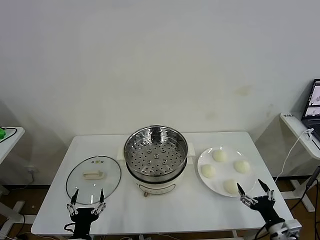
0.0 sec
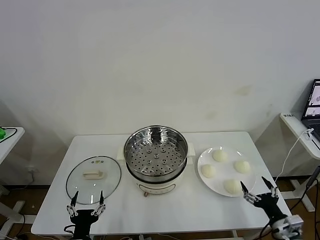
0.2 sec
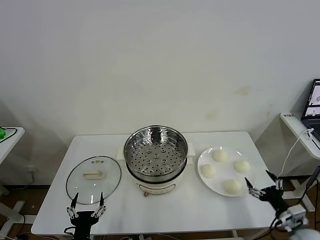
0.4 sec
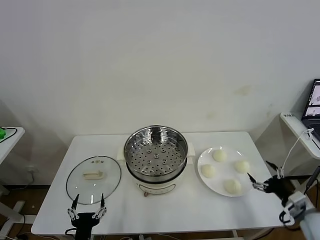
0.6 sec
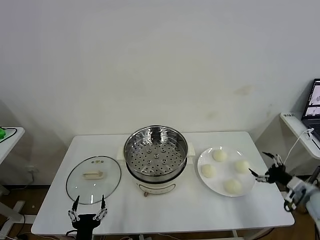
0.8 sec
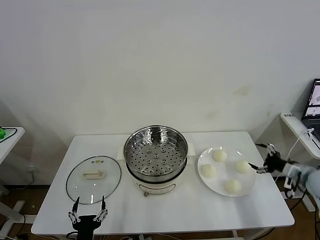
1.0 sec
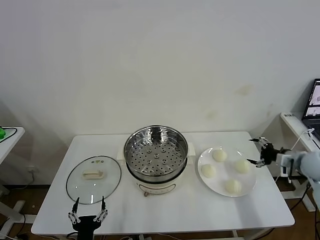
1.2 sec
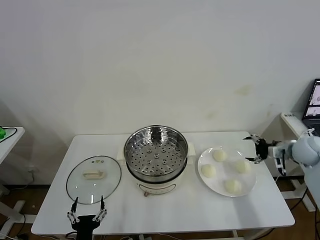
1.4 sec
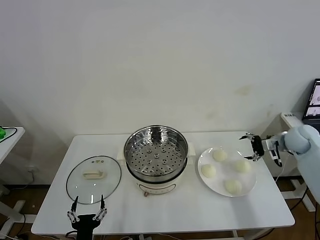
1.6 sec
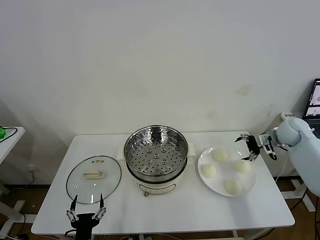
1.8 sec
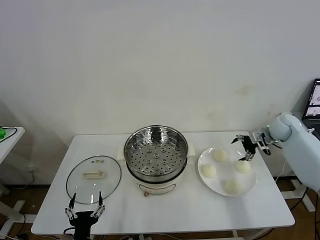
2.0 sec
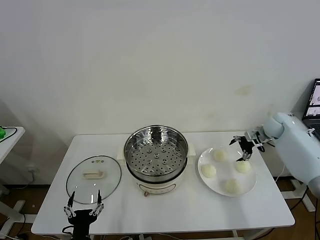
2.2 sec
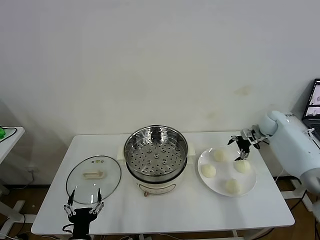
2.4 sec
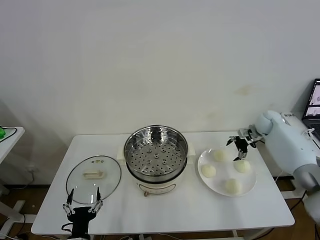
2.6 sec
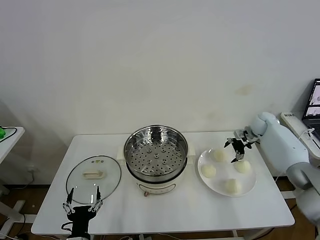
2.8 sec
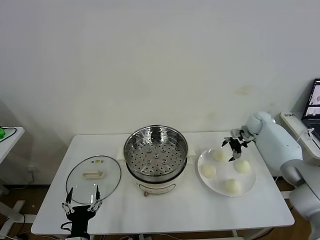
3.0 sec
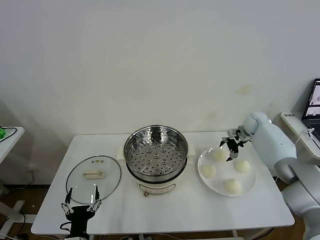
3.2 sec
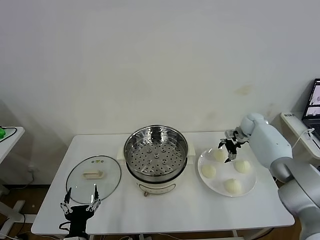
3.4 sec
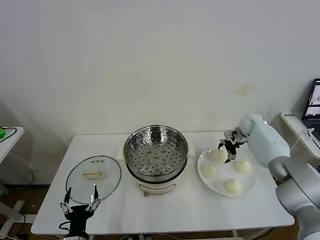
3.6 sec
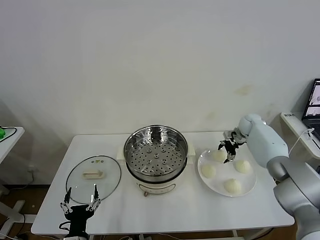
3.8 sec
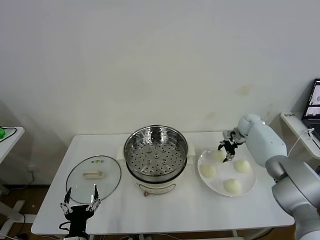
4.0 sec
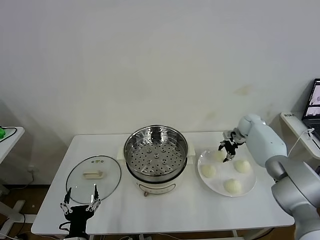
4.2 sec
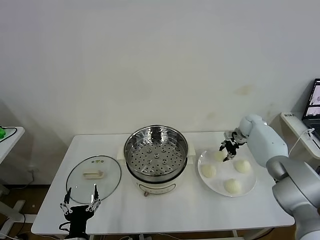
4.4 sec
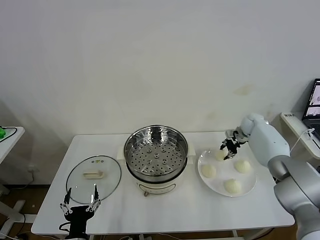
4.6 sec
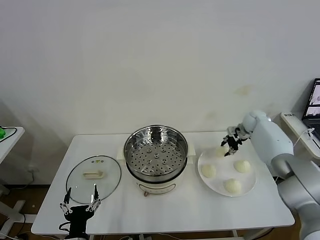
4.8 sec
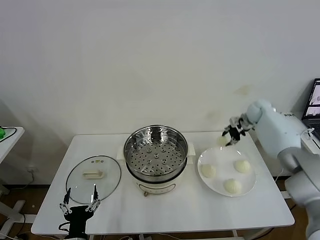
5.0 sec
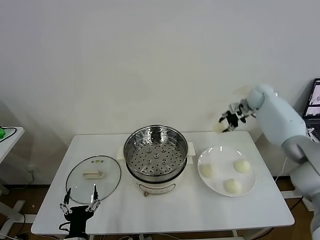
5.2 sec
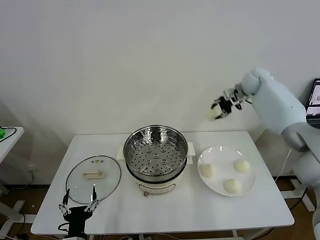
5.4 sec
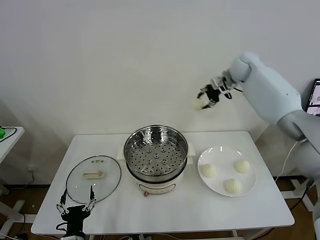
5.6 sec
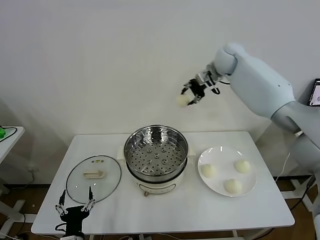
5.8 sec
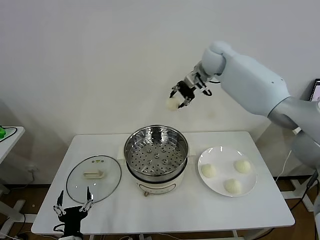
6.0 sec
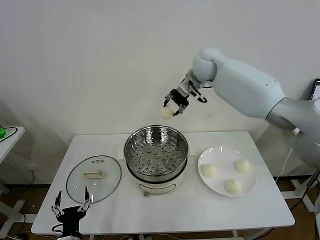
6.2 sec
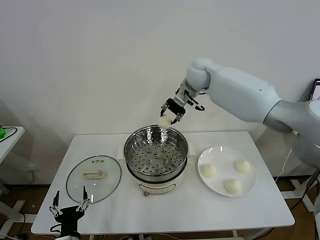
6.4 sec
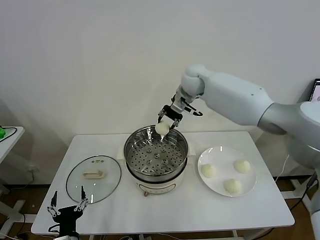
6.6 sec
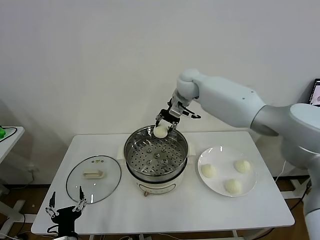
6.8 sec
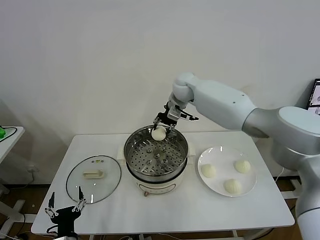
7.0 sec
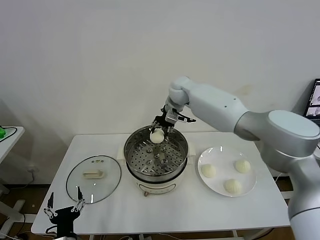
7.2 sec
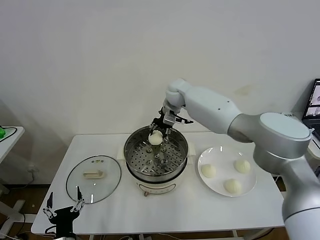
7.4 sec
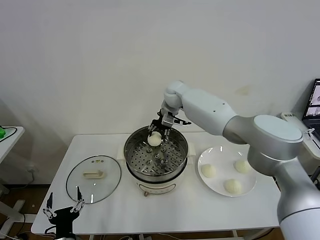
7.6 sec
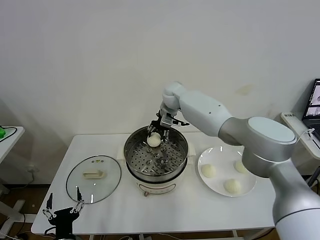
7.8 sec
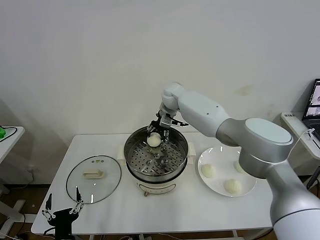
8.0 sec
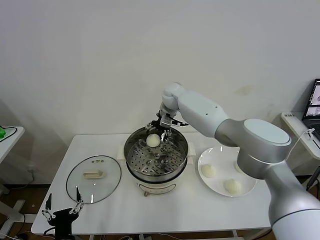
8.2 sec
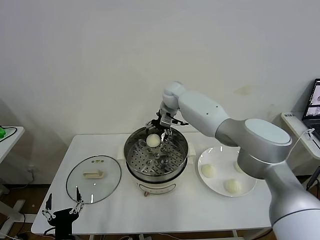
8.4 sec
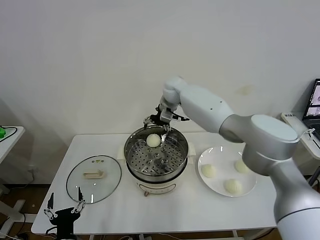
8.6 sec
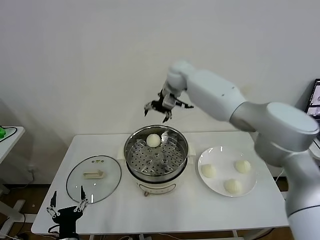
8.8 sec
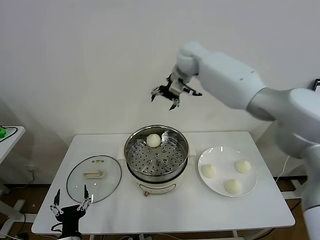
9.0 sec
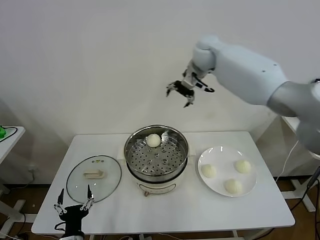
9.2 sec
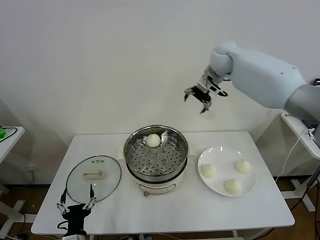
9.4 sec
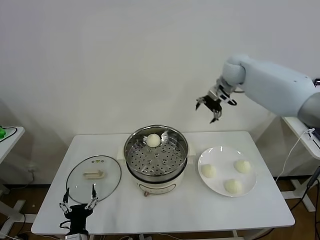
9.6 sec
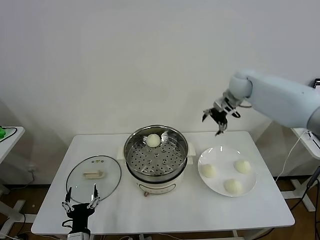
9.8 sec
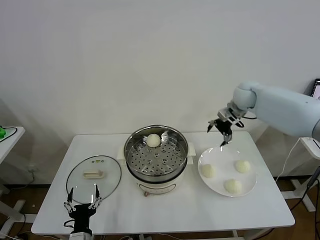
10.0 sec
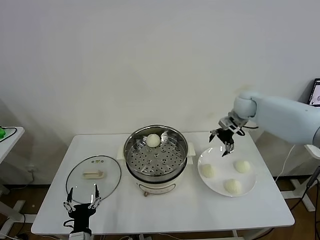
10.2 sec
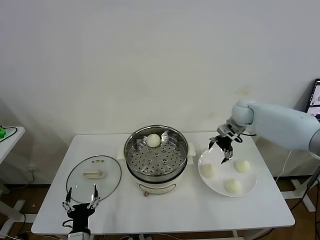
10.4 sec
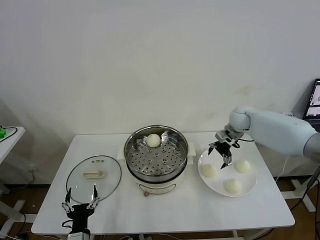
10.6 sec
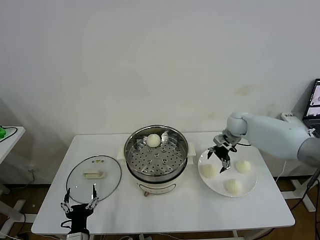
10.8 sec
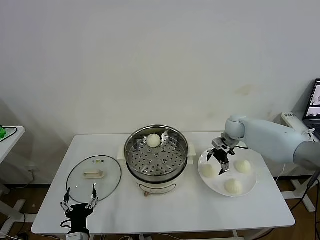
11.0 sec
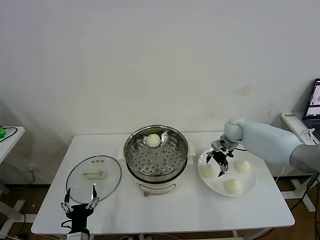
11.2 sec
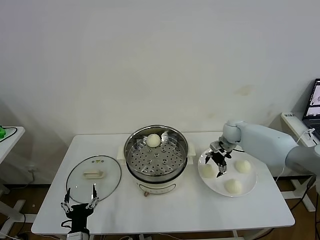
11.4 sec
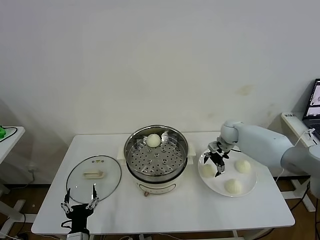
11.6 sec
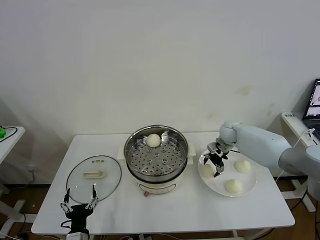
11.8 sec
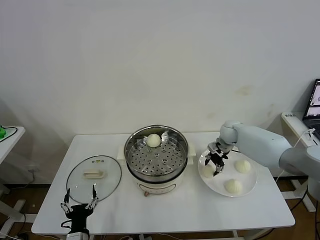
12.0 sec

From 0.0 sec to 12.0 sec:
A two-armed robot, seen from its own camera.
Task of the whole recording: take steamed baozi put them in steamer then cover it.
Step, from 0.0 sec to 4.4 sec: Grasp the baozi in the plate with right gripper.
Step, from 4.6 sec to 8.0 sec: Place the baozi on the steamer with right gripper.
From 1.6 sec to 3.0 sec: The right gripper heads forward, to the left and downward, covering approximately 15 cm.
From 3.0 sec to 4.4 sec: The right gripper closes its fingers.
From 4.4 sec to 6.0 sec: The right gripper travels upward and to the left by some 35 cm.
From 6.0 sec to 7.6 sec: The right gripper is displaced downward and to the left by some 15 cm.
From 7.6 sec to 9.0 sec: The right gripper moves upward and to the right, some 15 cm, and opens.
From 9.0 sec to 10.4 sec: The right gripper goes some 30 cm downward and to the right.
From 10.4 sec to 12.0 sec: The right gripper travels downward by approximately 10 cm, and closes its fingers.

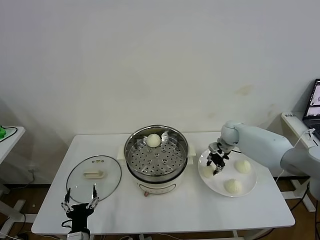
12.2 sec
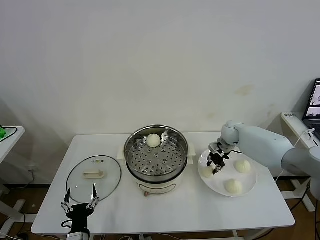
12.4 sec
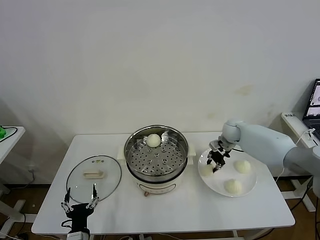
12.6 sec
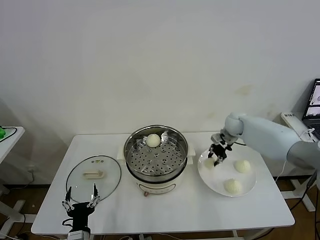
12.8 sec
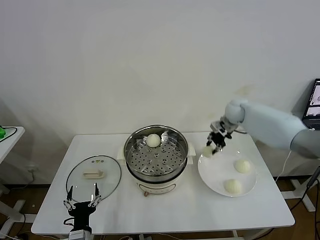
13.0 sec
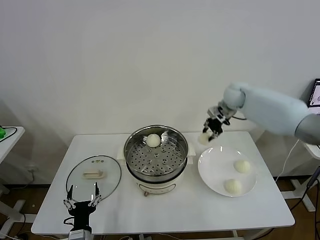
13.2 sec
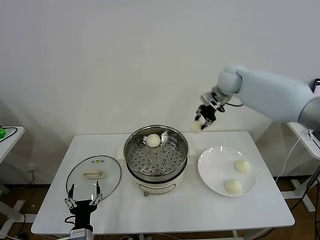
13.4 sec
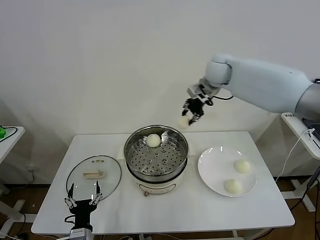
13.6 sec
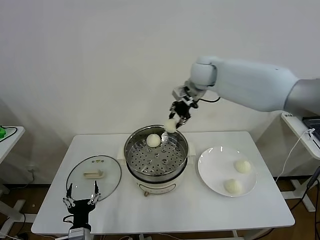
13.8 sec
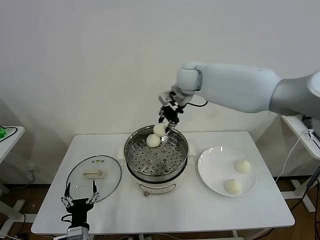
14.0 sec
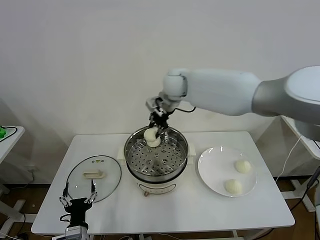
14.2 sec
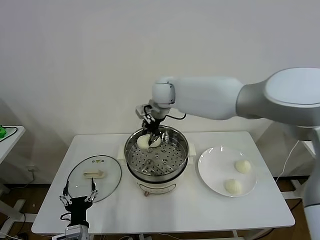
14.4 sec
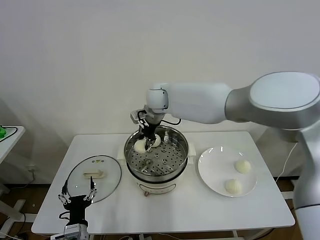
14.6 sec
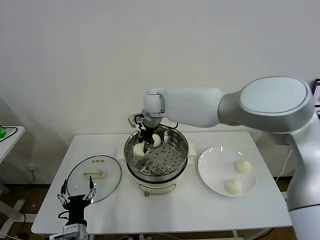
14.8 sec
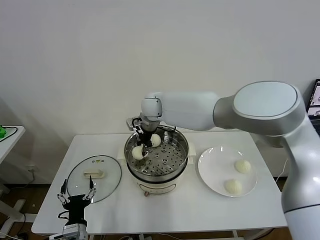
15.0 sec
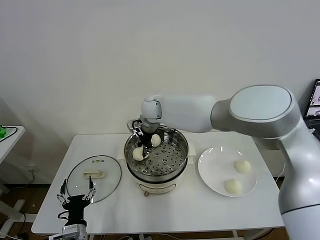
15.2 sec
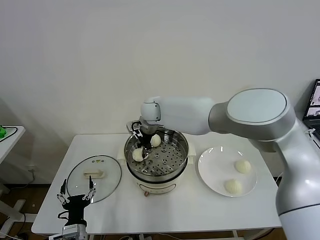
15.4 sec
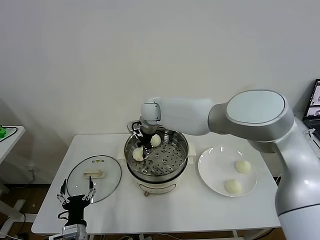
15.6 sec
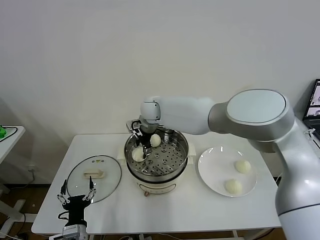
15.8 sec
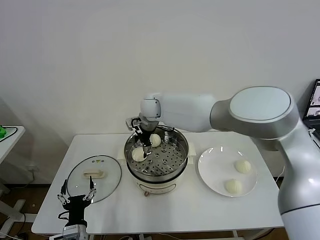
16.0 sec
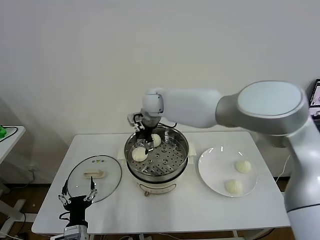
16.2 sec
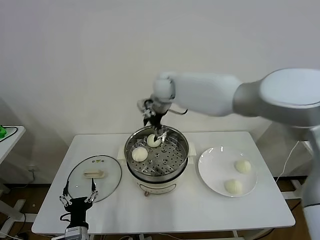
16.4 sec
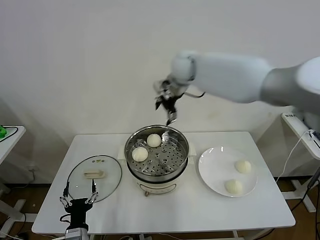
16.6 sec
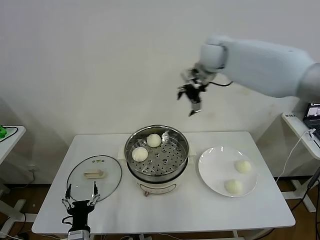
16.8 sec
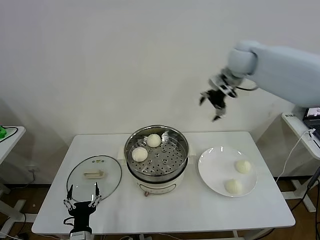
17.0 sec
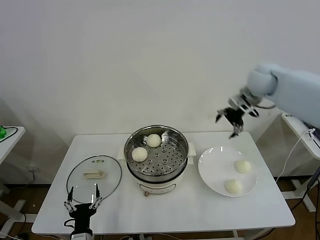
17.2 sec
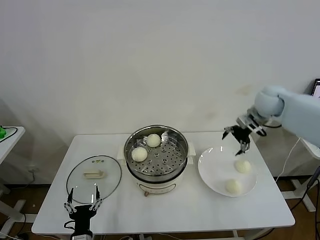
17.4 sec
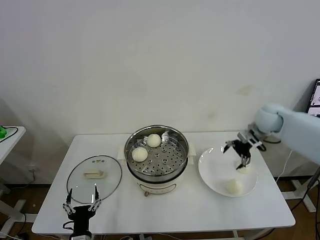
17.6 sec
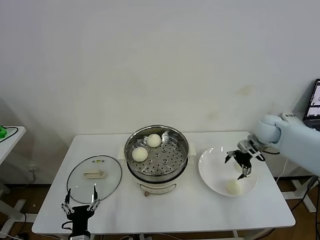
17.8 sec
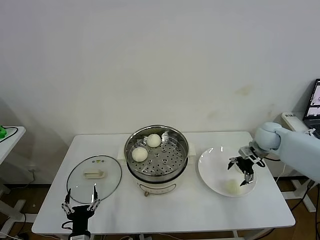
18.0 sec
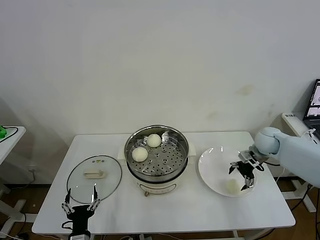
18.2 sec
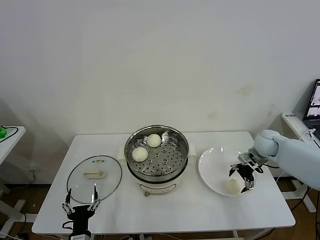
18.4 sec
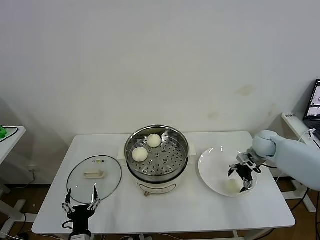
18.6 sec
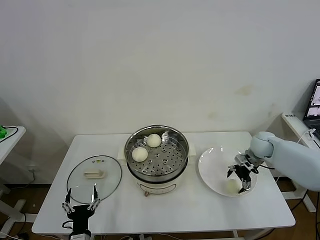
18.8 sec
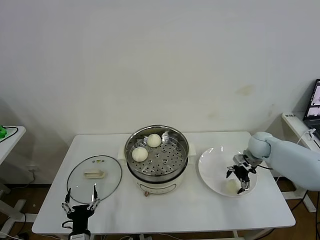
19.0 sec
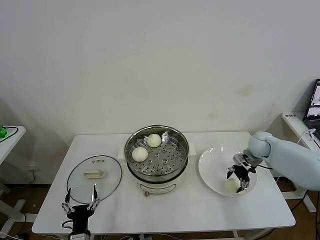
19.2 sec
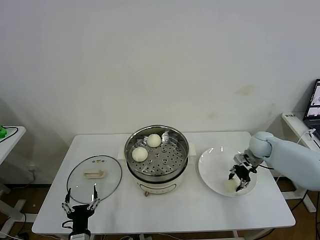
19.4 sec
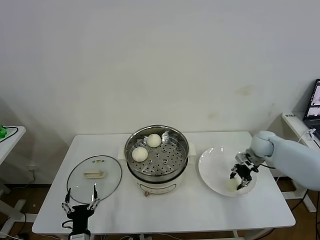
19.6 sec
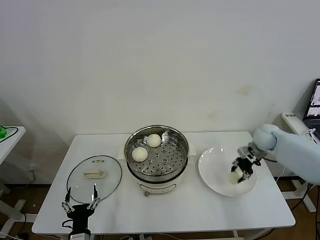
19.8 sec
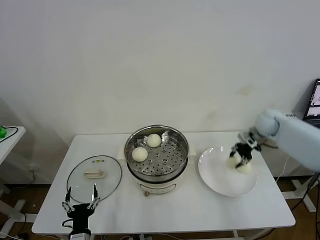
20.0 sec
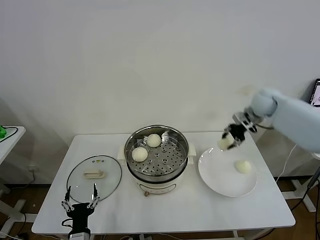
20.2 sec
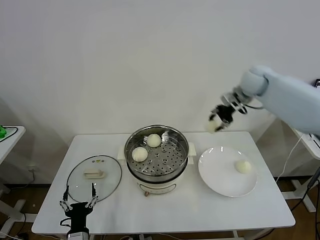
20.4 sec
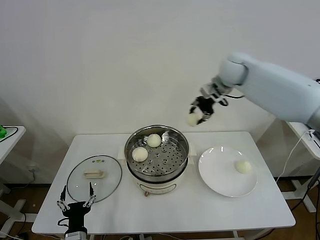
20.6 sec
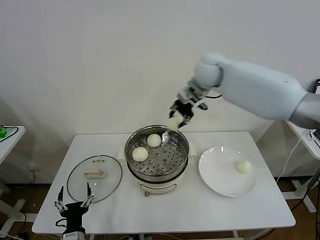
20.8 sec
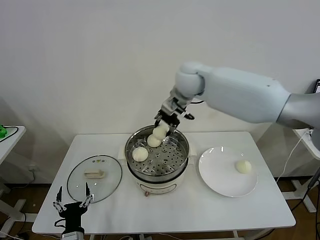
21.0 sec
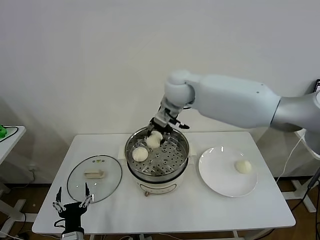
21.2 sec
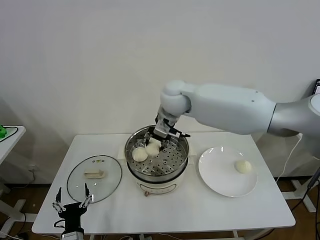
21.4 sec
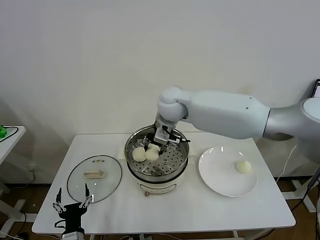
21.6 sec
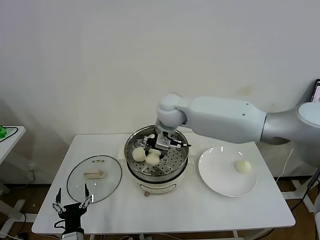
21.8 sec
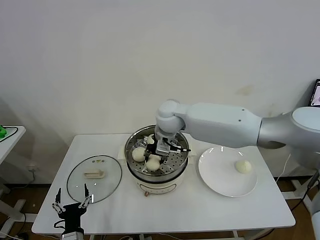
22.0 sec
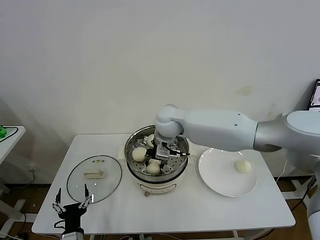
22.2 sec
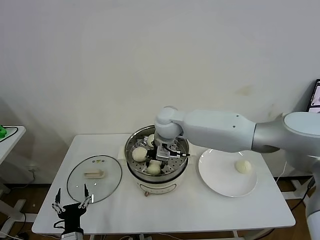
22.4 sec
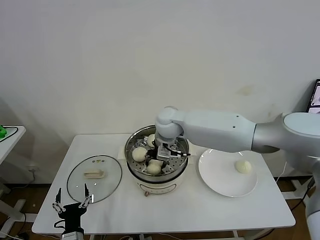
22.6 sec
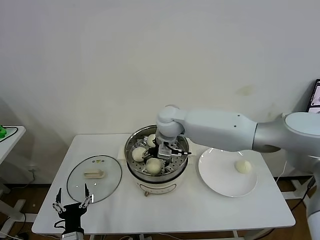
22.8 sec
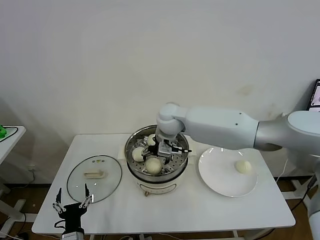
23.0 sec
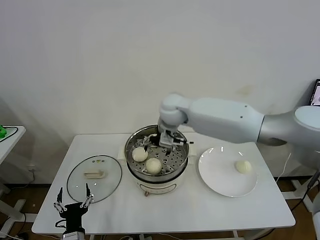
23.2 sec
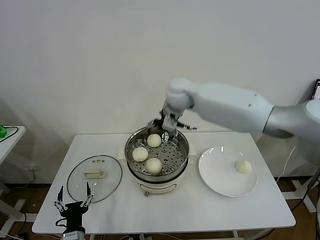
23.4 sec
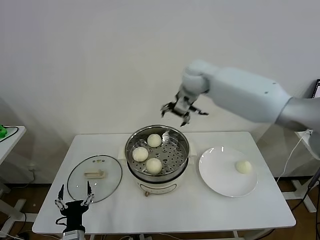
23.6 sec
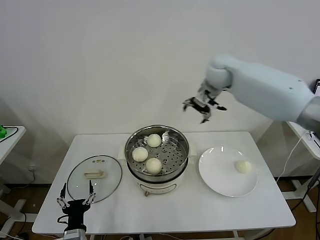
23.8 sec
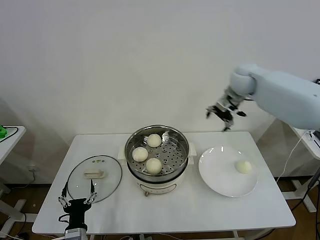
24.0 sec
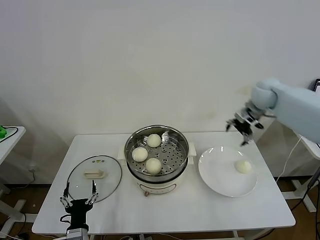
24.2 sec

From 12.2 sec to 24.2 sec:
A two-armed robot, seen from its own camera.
Task of the whole recording: take steamed baozi put them in steamer then cover it.
Step, from 12.4 sec to 15.8 sec: Place the baozi on the steamer with right gripper.
Step, from 16.0 sec to 19.4 sec: Grasp the baozi in the plate with right gripper.
Step, from 19.6 sec to 22.8 sec: Place the baozi on the steamer with right gripper.
From 12.2 sec to 13.8 sec: The right gripper moves upward and to the left, some 30 cm.
From 13.8 sec to 15.2 sec: The right gripper goes some 20 cm to the left and downward.
From 15.2 sec to 16.6 sec: The right gripper is displaced upward and to the right by some 20 cm, and opens its fingers.
From 16.6 sec to 18.2 sec: The right gripper heads to the right and downward, covering approximately 40 cm.
From 18.2 sec to 19.8 sec: The right gripper closes up.
From 19.8 sec to 21.2 sec: The right gripper goes roughly 40 cm to the left and upward.
From 21.2 sec to 22.6 sec: The right gripper goes approximately 10 cm downward.
From 22.6 sec to 24.2 sec: The right gripper goes roughly 35 cm to the right, and opens.
